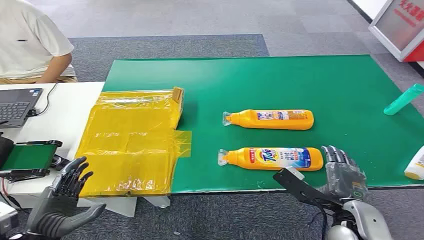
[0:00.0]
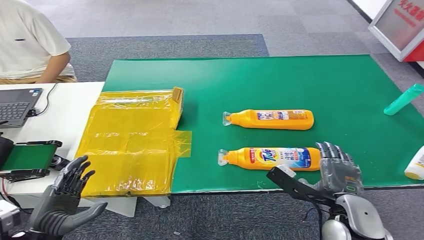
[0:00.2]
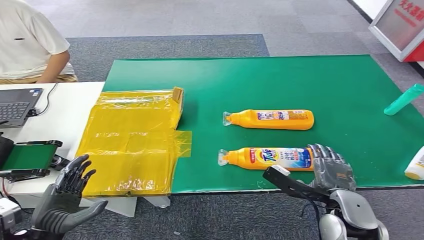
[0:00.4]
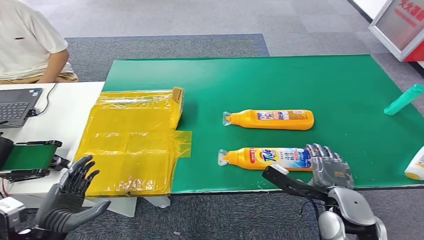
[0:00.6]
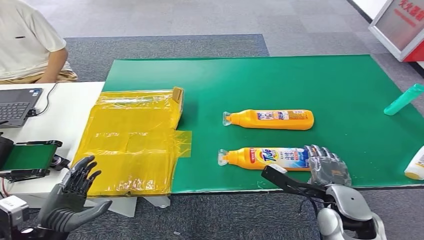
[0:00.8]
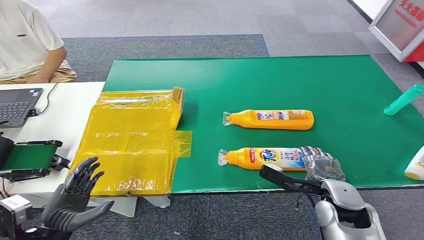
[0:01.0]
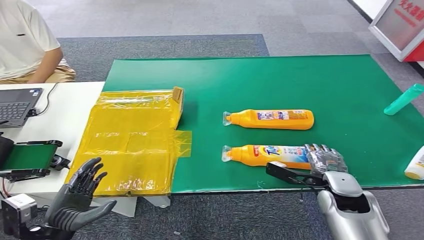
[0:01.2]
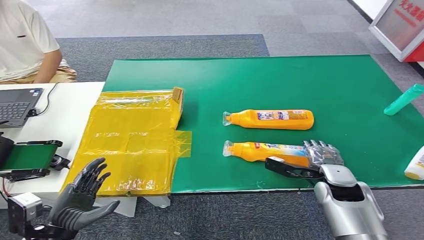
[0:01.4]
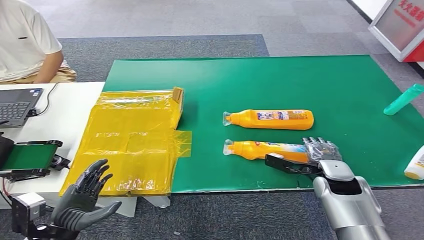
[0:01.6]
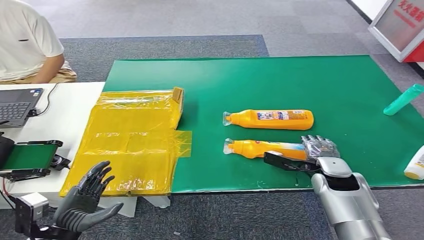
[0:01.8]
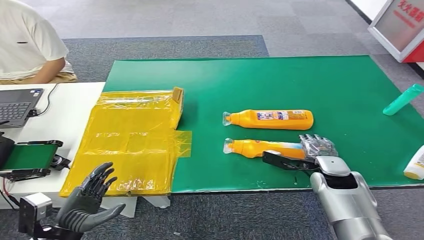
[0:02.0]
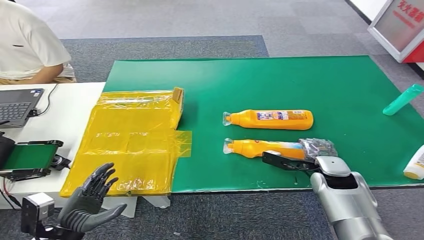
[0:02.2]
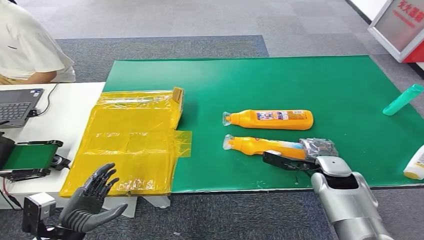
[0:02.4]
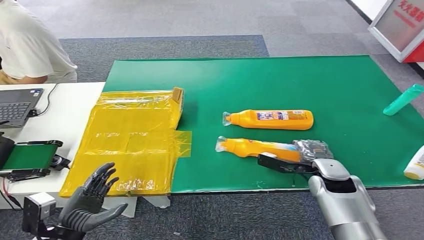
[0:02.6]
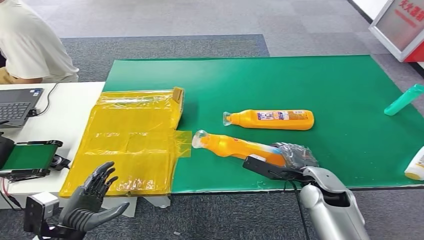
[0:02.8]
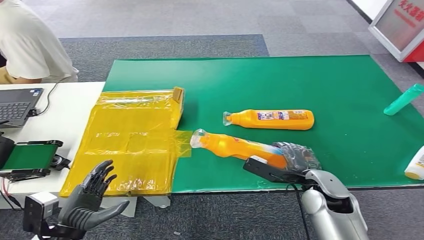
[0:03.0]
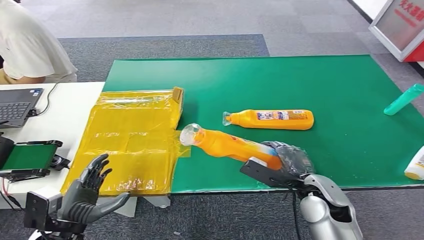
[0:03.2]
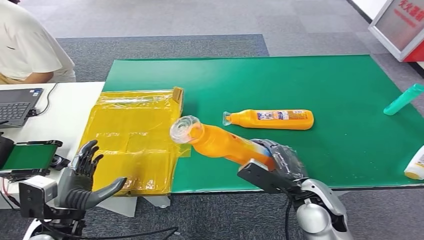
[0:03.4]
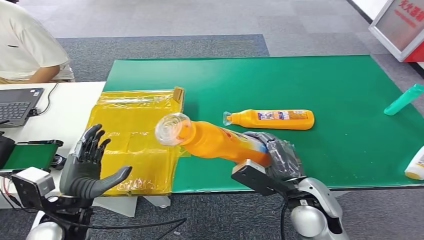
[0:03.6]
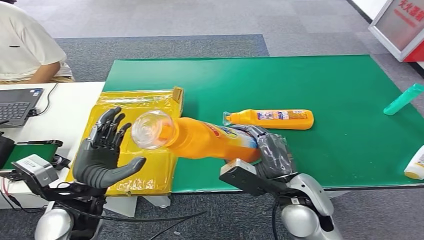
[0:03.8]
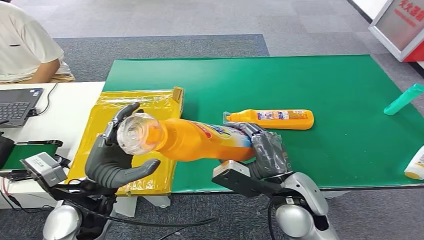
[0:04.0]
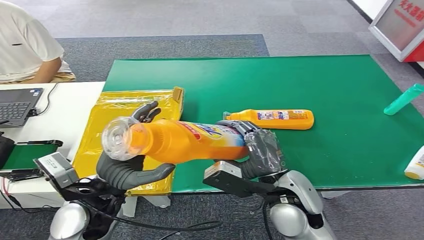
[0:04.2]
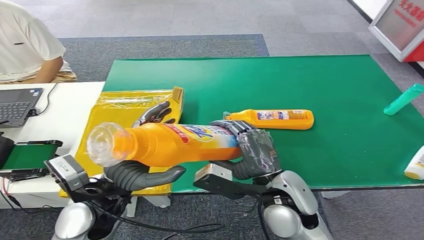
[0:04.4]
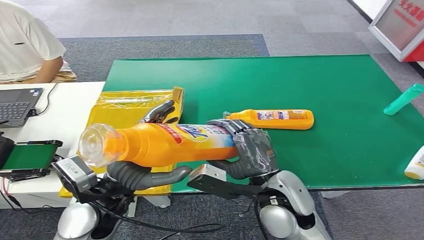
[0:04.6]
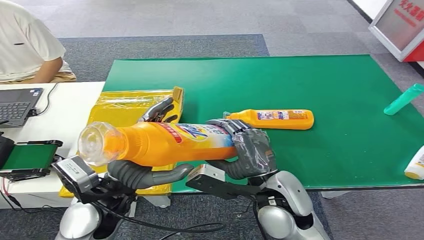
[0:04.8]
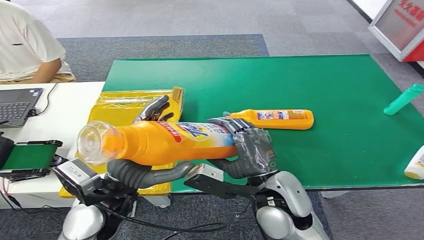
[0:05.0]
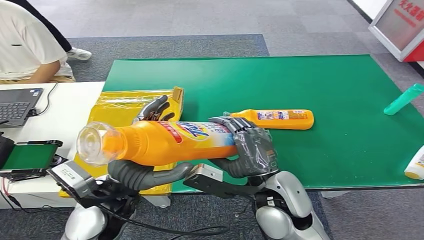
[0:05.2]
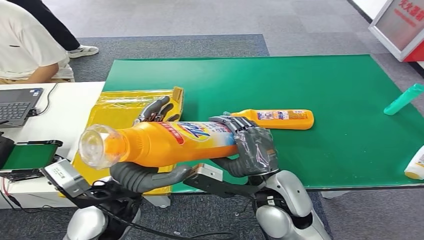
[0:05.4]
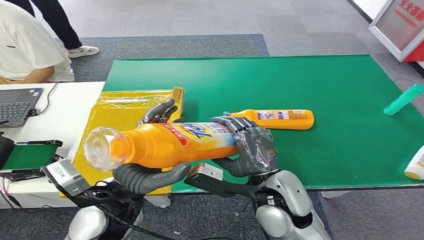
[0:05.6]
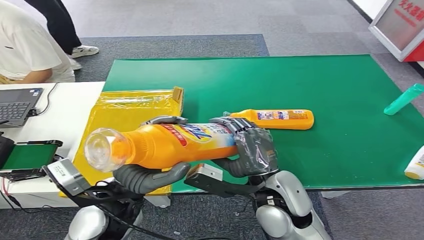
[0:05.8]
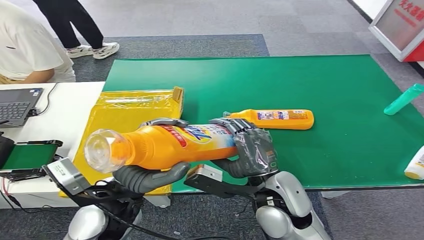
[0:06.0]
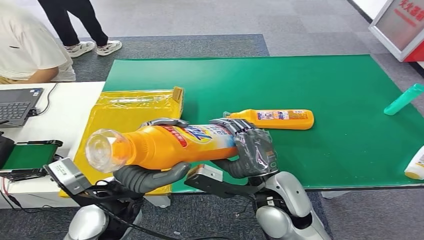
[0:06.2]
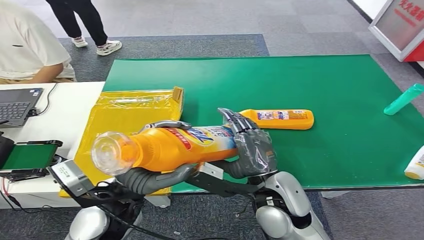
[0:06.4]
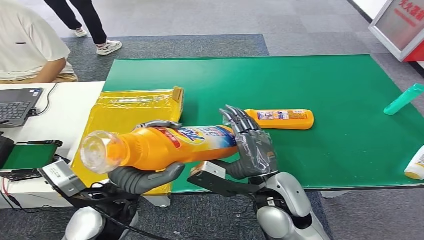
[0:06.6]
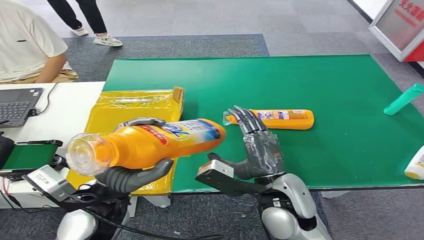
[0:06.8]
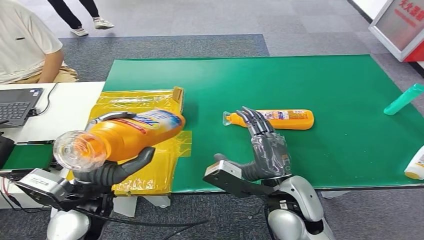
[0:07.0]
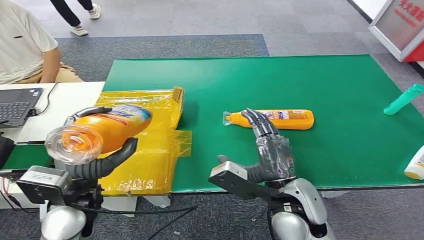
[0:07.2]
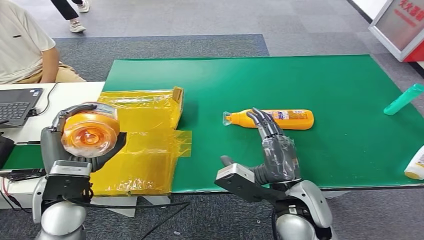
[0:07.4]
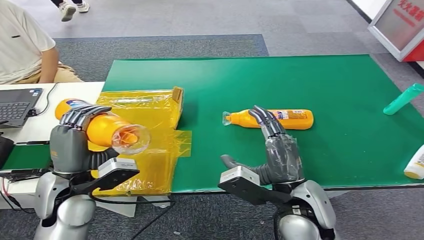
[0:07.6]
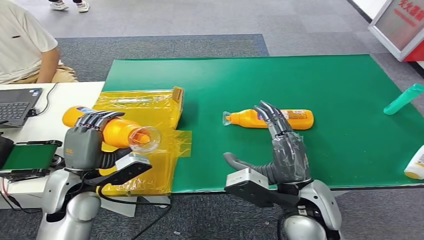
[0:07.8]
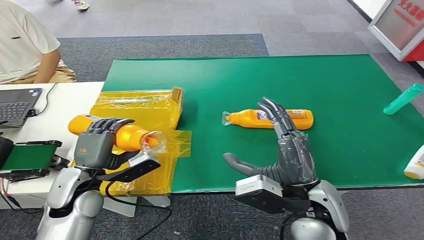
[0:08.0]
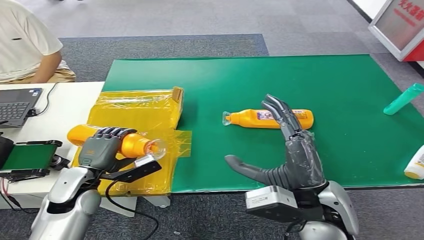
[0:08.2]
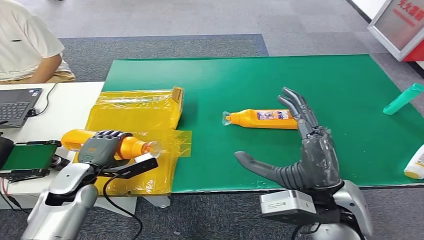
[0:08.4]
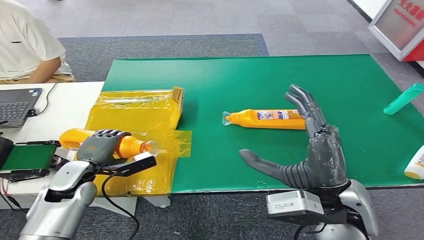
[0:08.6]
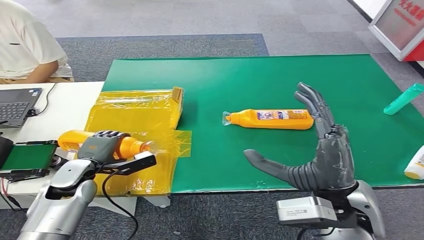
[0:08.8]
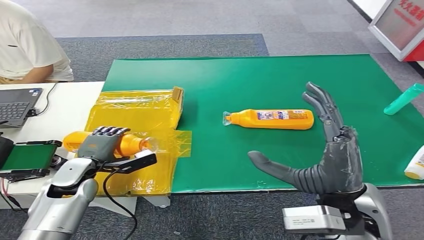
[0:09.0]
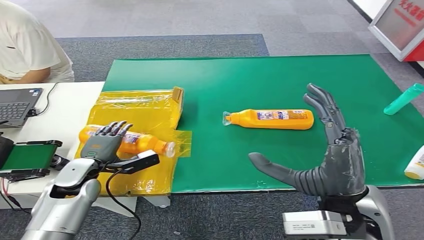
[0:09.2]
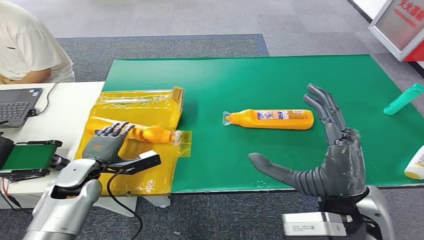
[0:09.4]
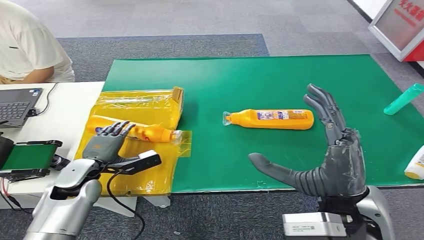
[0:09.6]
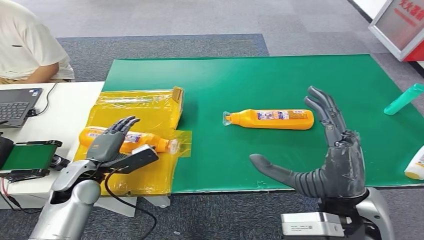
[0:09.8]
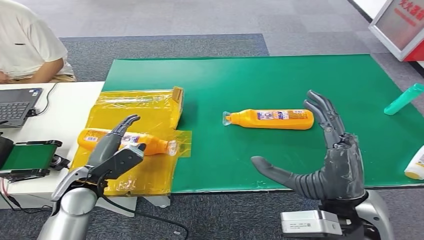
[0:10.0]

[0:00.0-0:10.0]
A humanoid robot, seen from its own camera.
Step, 0:00.0 to 0:04.0: Pick up the bottle from the table.
Step, 0:04.2 to 0:10.0: Turn the bottle to the front side.
0:04.2 to 0:05.8: There are only small adjustments of the hands.
0:08.6 to 0:10.0: The left hand ends up approximately 5 cm from where it was.

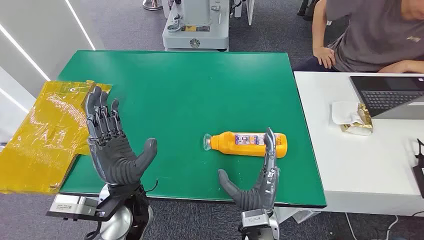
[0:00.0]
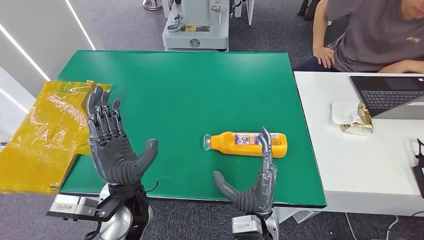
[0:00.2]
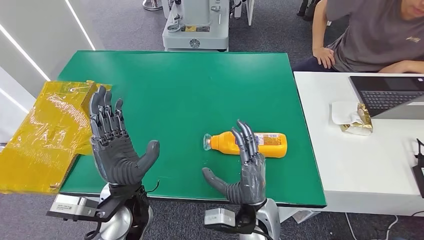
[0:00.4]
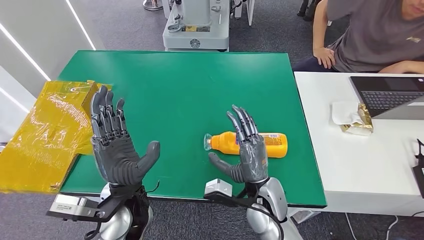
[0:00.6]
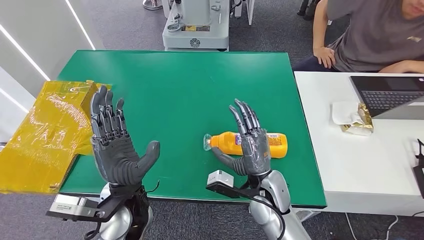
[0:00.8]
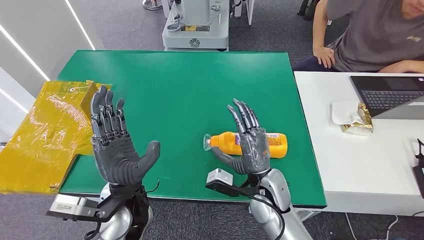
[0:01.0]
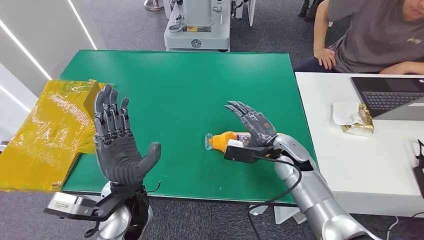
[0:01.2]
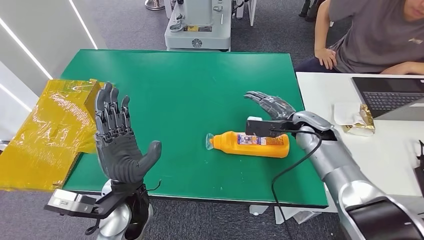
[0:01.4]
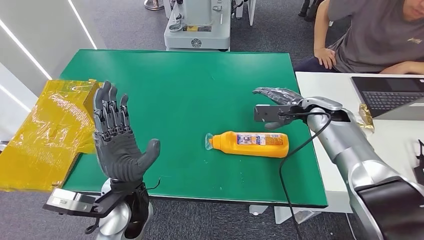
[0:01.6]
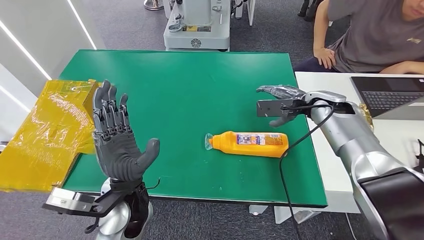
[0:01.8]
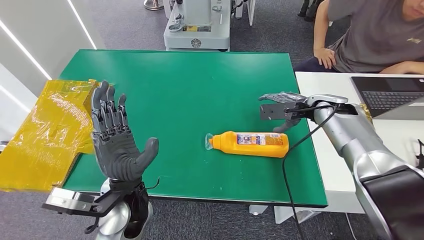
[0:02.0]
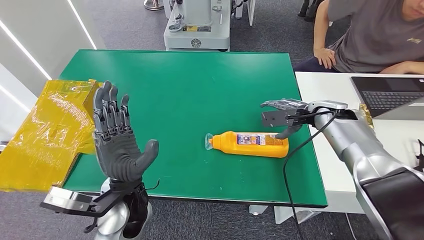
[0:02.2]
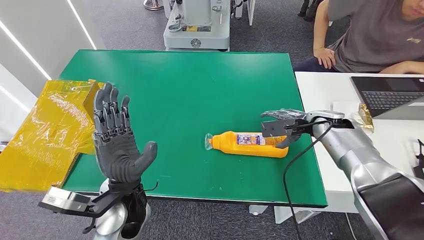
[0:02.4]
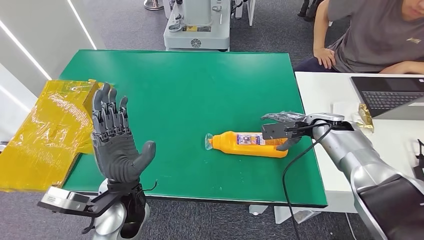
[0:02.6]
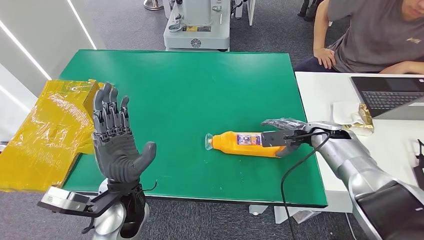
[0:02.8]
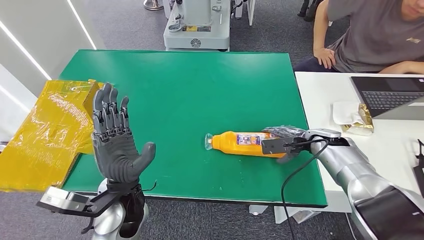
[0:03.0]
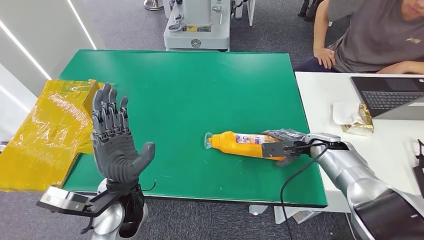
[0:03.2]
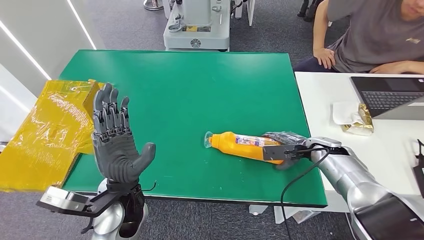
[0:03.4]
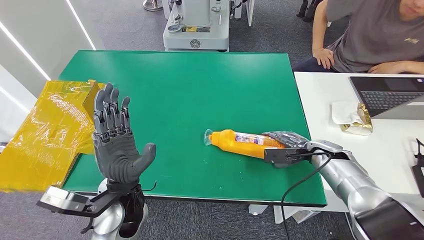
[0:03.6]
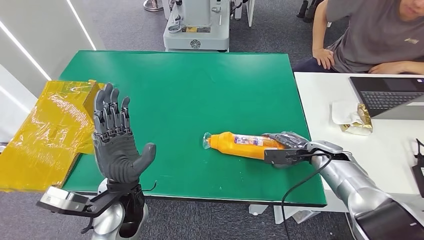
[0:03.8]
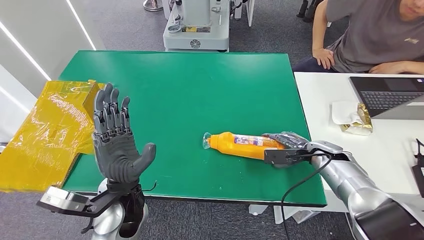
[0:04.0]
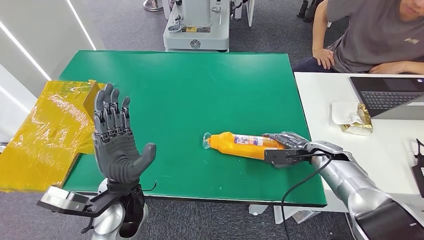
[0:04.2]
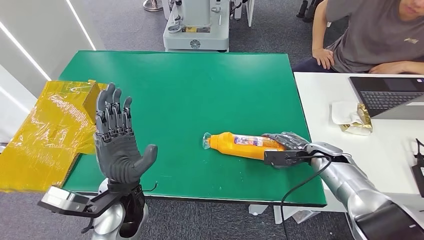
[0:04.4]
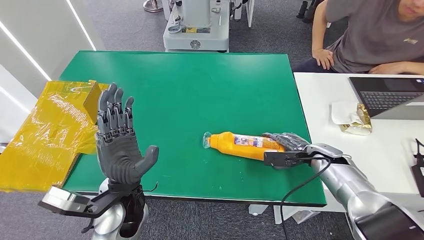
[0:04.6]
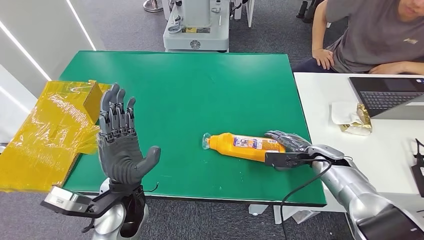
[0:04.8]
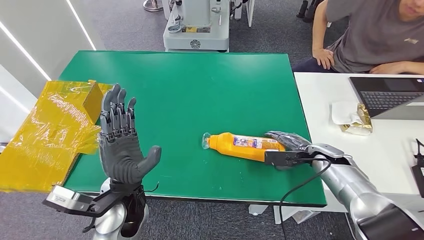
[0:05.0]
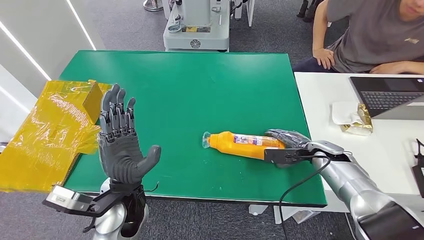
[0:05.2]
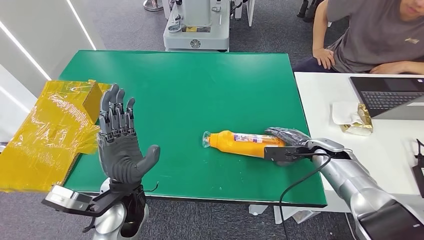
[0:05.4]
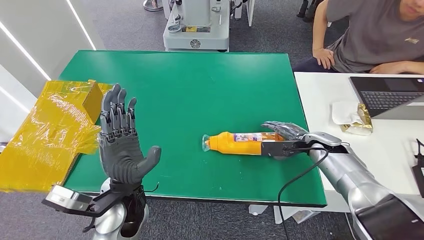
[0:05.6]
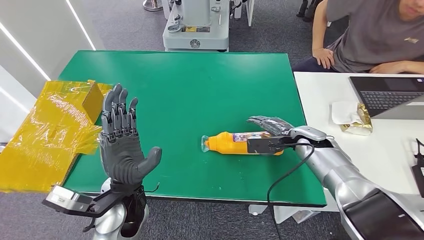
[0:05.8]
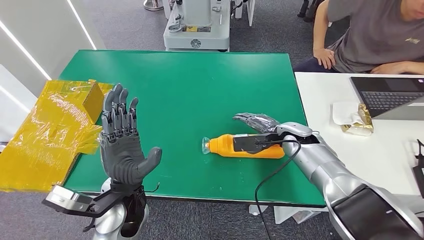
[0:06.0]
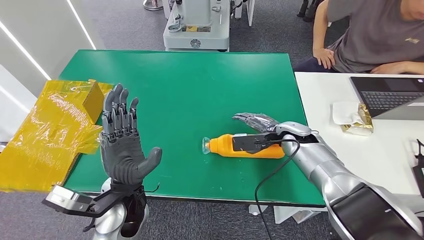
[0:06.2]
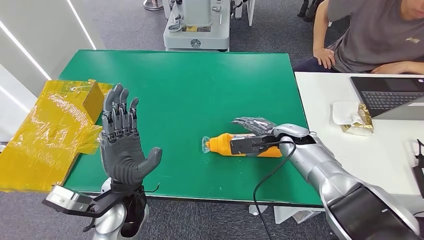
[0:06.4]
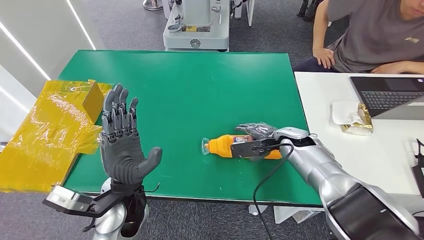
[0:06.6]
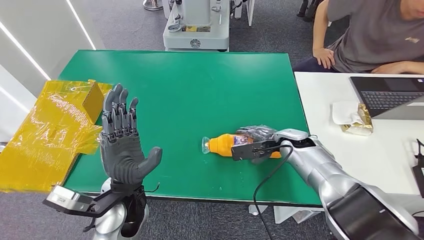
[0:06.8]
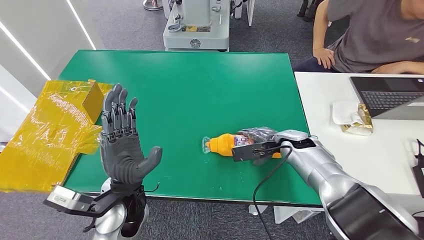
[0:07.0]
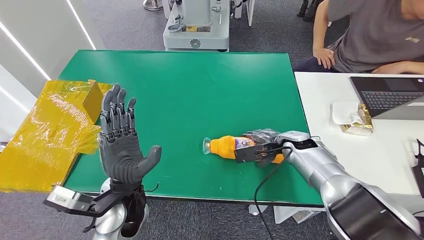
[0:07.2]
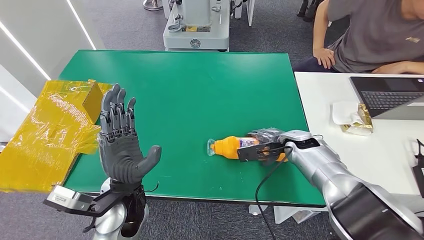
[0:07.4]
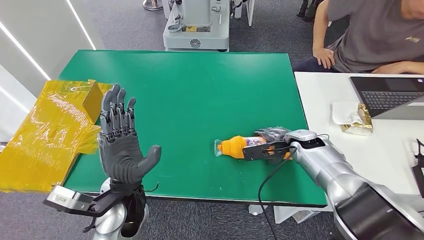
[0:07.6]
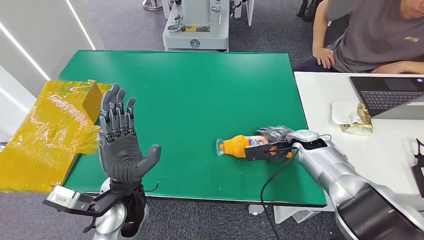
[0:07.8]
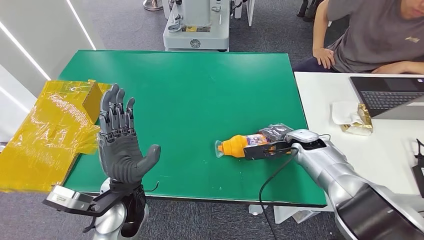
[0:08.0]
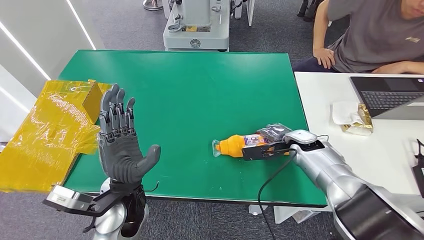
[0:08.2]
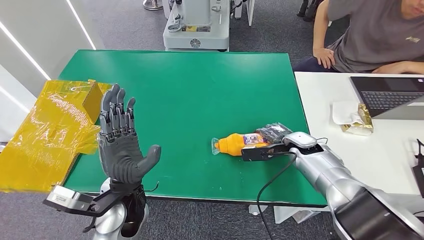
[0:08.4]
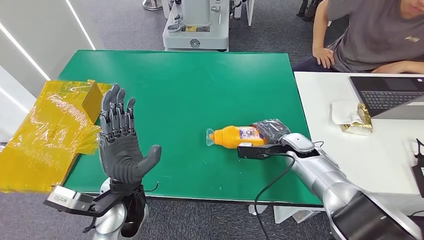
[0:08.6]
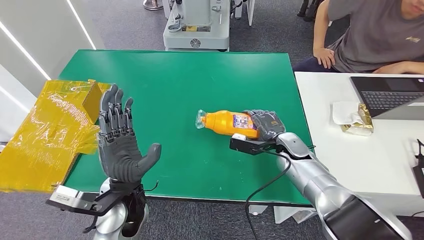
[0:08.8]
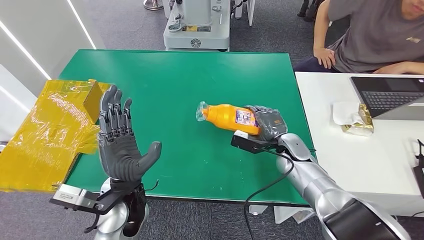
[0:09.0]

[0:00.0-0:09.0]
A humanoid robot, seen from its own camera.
0:01.6 to 0:03.0: The right hand heads downward, covering approximately 10 cm.
0:03.0 to 0:04.4: The right hand shifts by about 5 cm.
0:04.4 to 0:06.0: The right hand heads to the left and upward, covering roughly 10 cm.
0:07.6 to 0:09.0: The right hand shifts by about 5 cm.
